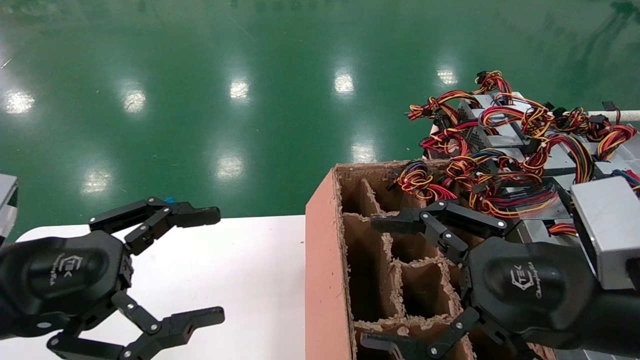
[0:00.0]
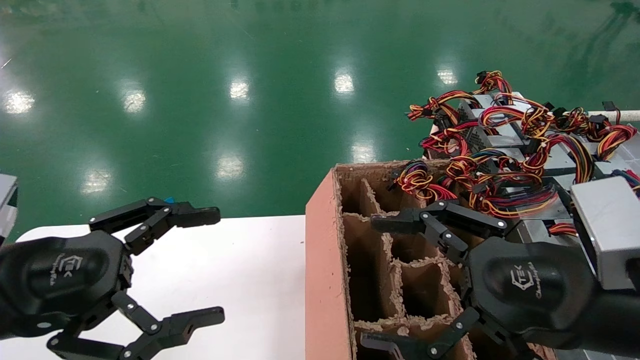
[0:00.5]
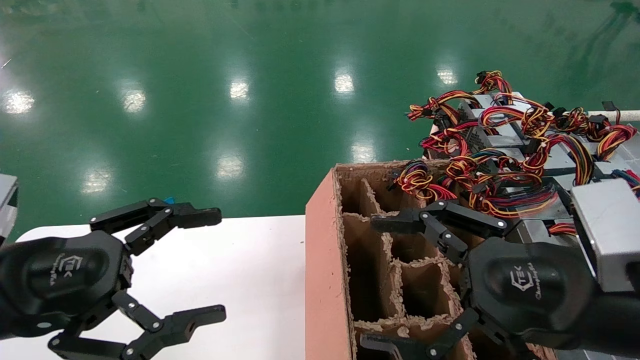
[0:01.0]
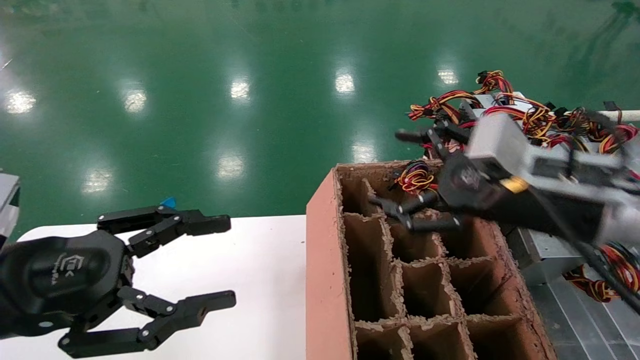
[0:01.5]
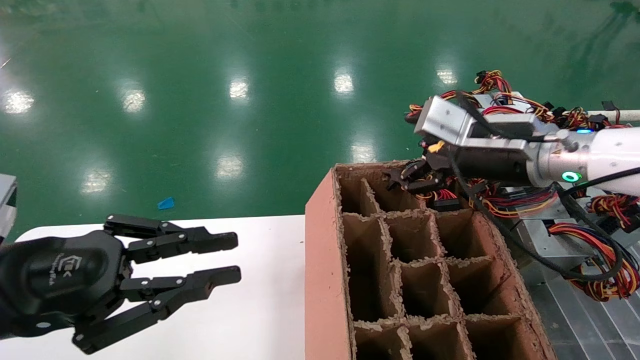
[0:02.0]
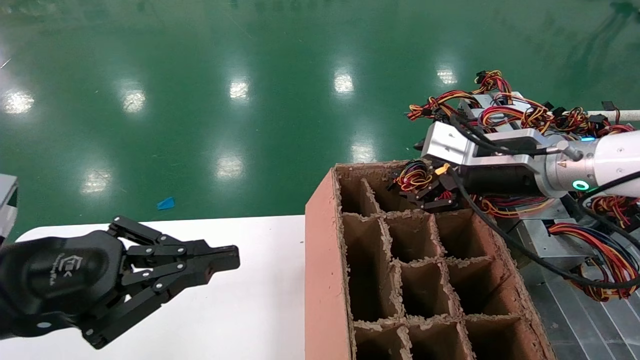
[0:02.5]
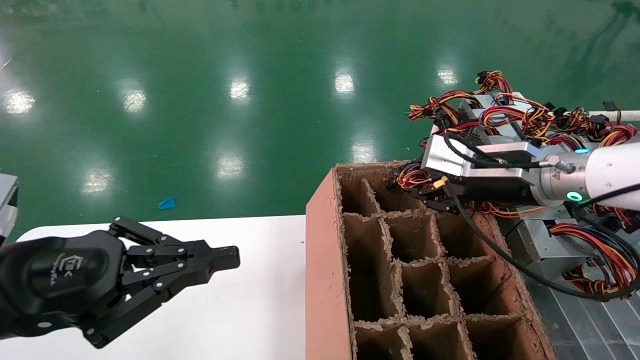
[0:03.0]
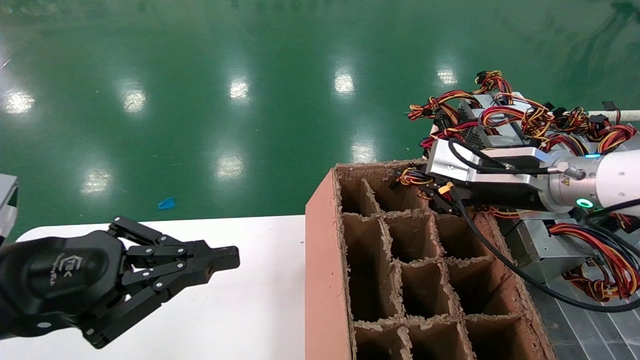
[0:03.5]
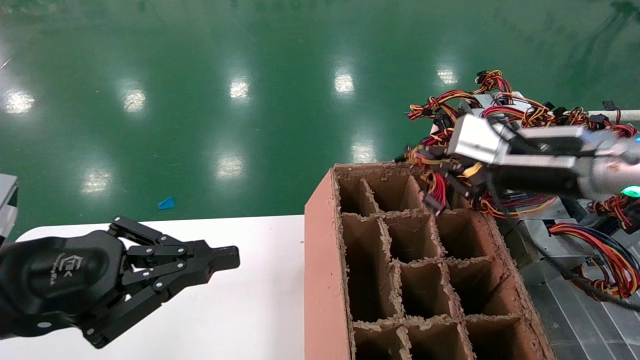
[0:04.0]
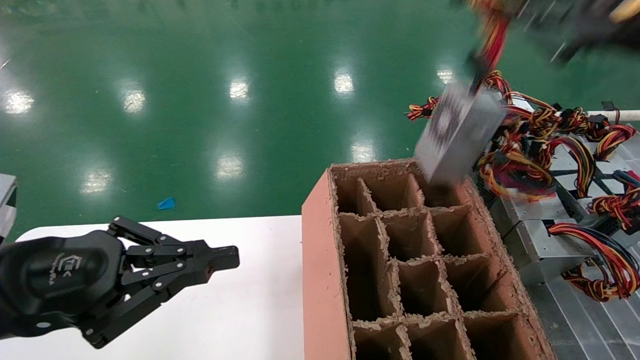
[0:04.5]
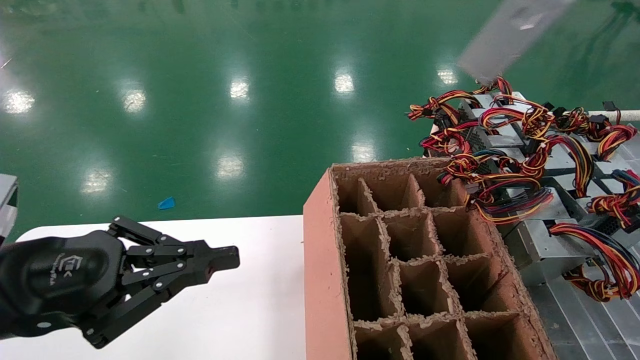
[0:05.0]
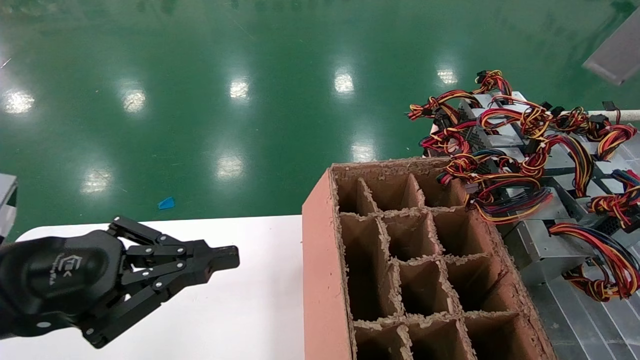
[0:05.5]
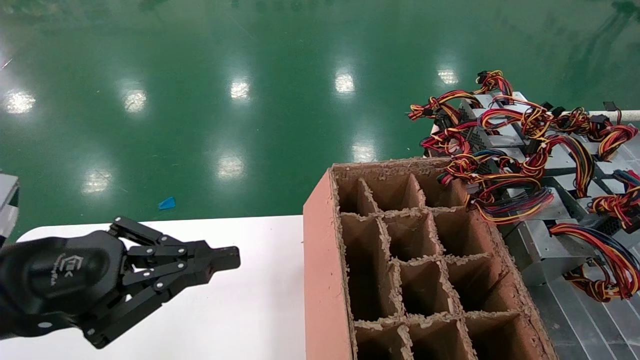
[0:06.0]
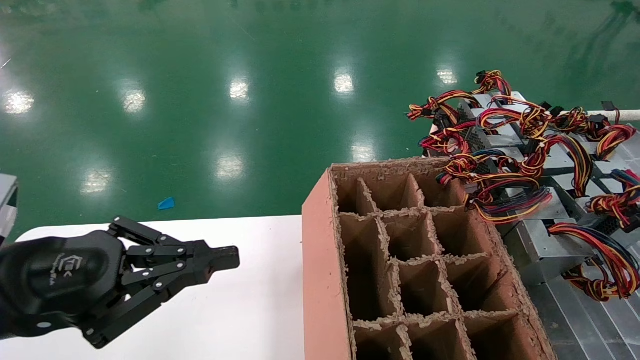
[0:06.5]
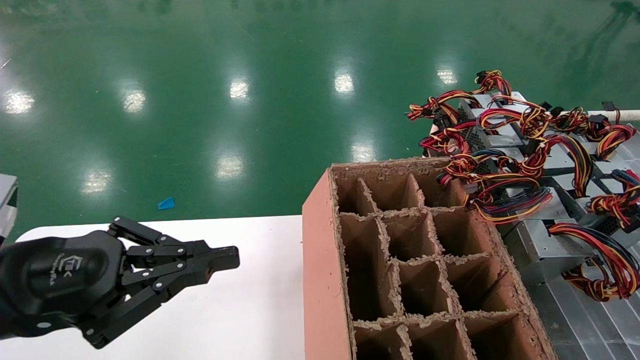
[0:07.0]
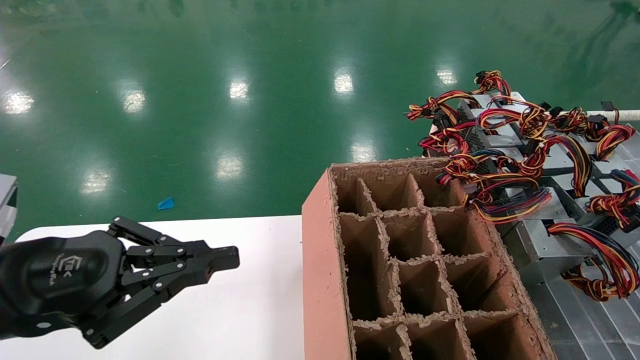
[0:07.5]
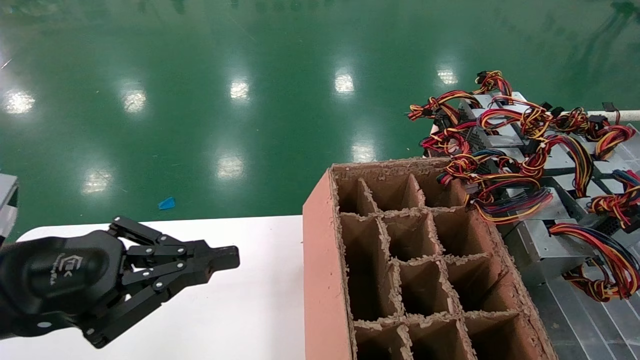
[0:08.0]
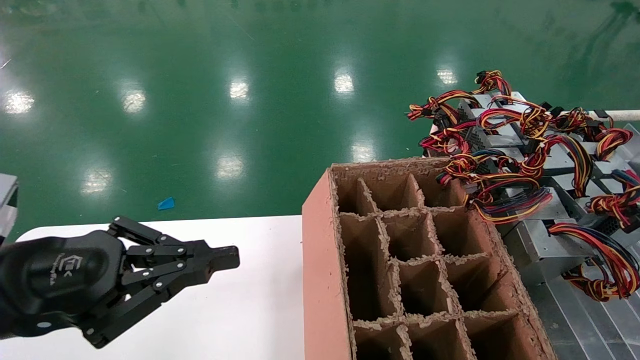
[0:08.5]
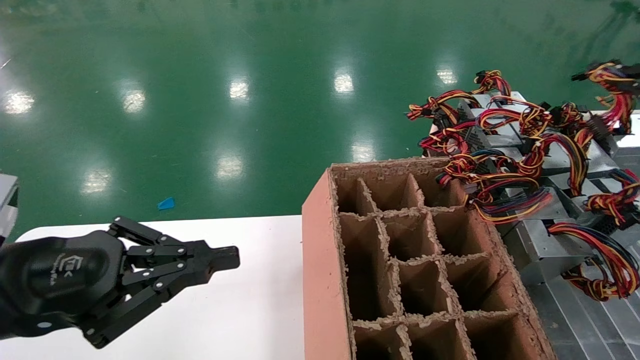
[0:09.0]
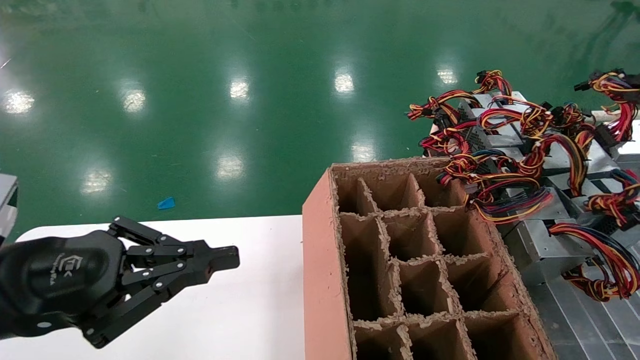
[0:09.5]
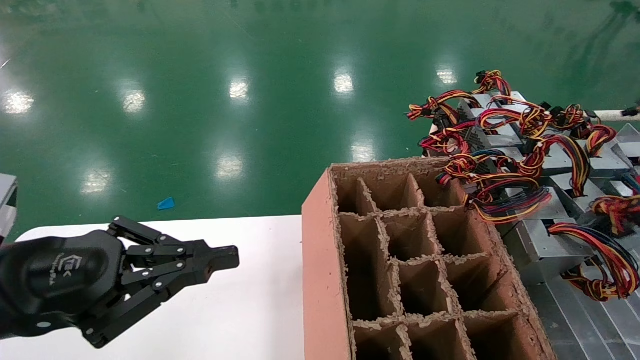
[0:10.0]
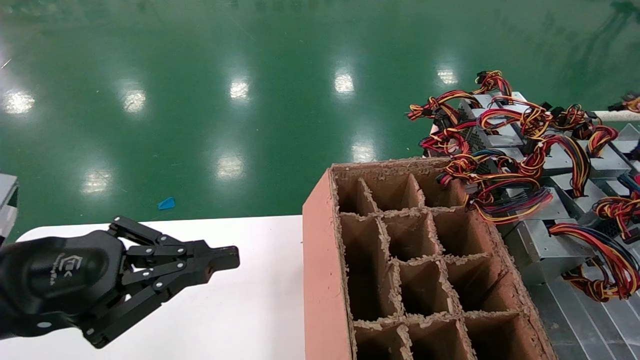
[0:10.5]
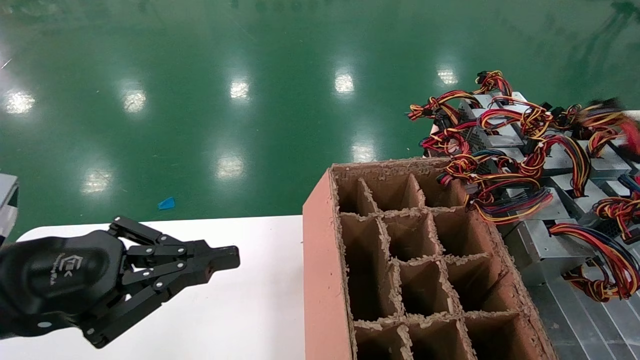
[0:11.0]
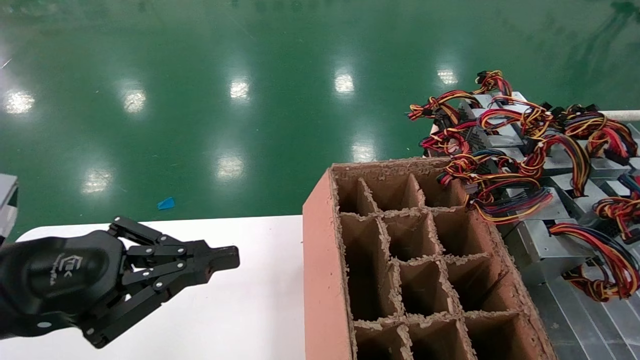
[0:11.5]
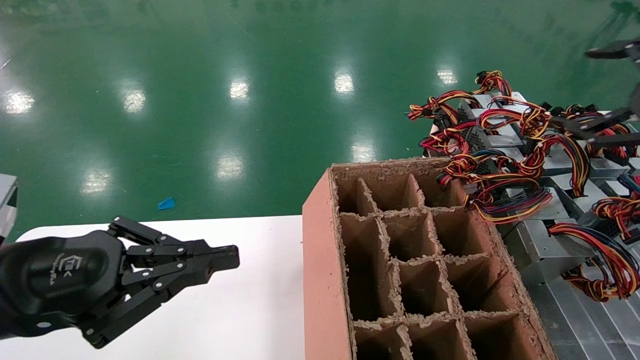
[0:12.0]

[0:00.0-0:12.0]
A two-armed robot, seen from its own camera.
Step, 0:01.5 to 0:03.5: Grab the main unit power supply from the containment box.
Step, 0:04.0 to 0:12.0: Place the main unit power supply in the designated area.
0:00.0 to 0:02.0: The left gripper closes up; the right gripper moves forward, roughly 15 cm.
0:02.0 to 0:04.0: The right gripper changes place by about 5 cm, and closes.
0:04.0 to 0:06.0: The right gripper shifts approximately 35 cm to the right, backward and upward.
0:08.0 to 0:10.0: The right gripper travels forward by some 5 cm.
0:10.0 to 0:12.0: The right gripper travels to the left by approximately 10 cm, and opens.

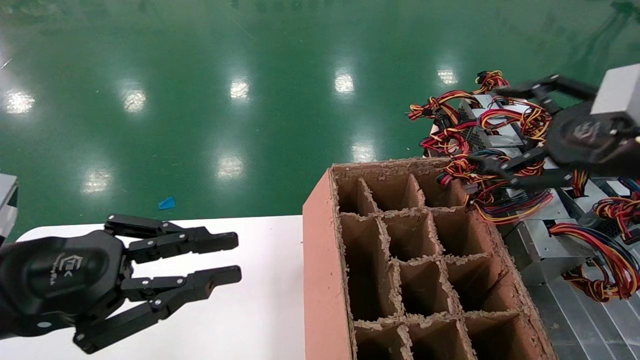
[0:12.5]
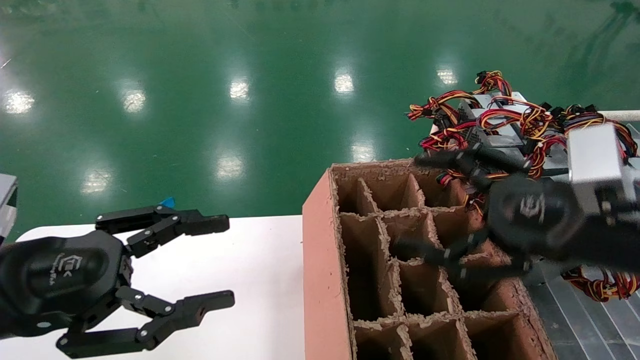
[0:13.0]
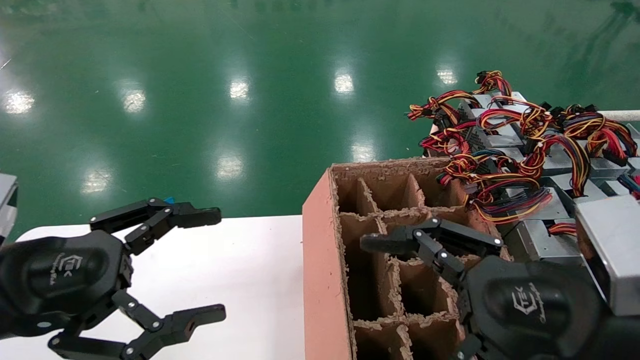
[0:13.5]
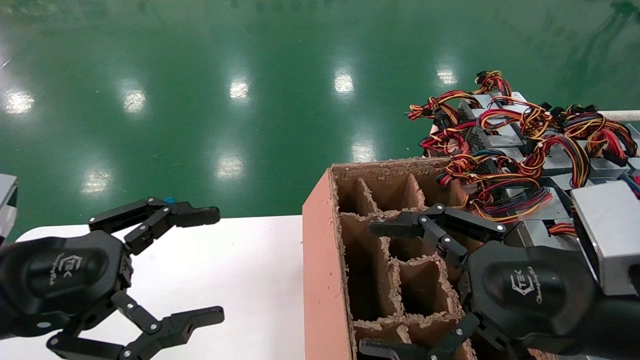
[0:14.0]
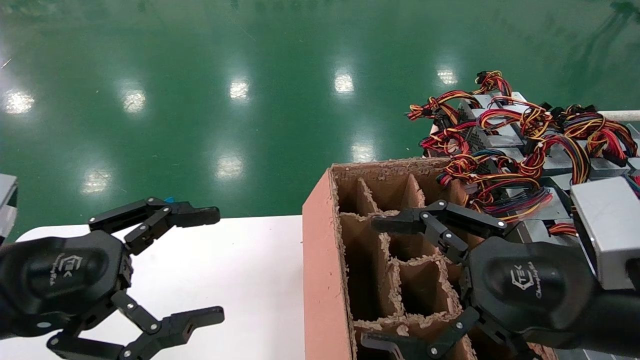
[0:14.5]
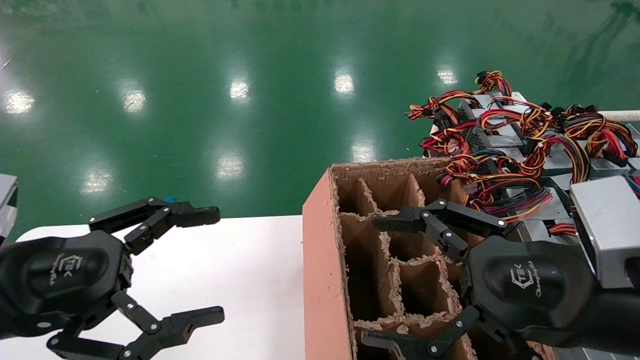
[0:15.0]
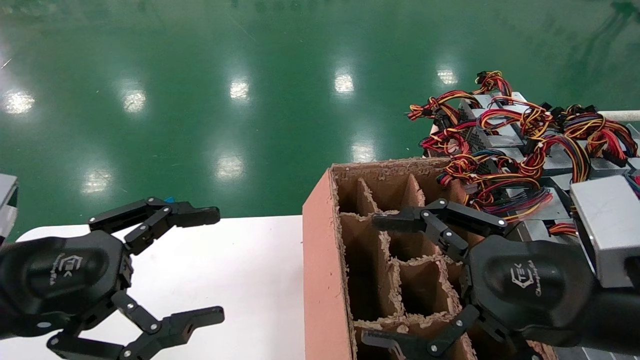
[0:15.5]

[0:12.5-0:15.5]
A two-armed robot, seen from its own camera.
0:12.5 to 0:14.0: The left gripper opens up. The right gripper goes about 15 cm to the left, backward and downward.
0:14.0 to 0:15.5: The two grippers keep their place.

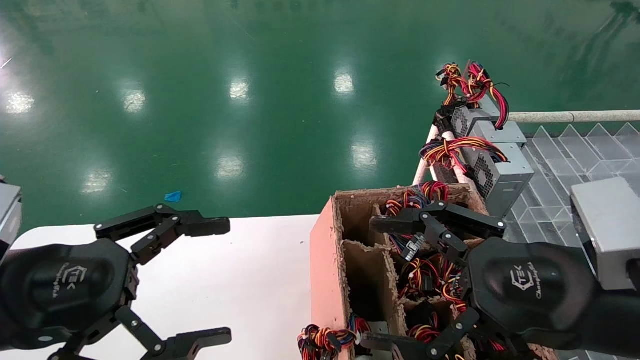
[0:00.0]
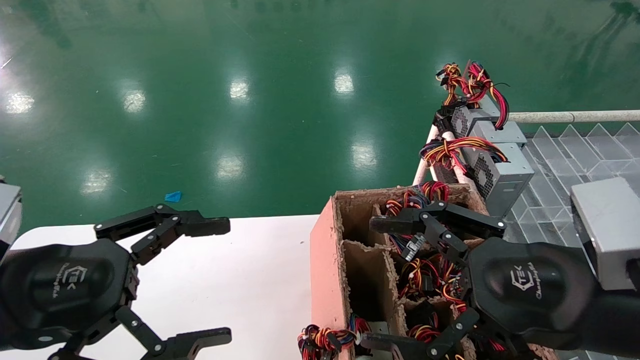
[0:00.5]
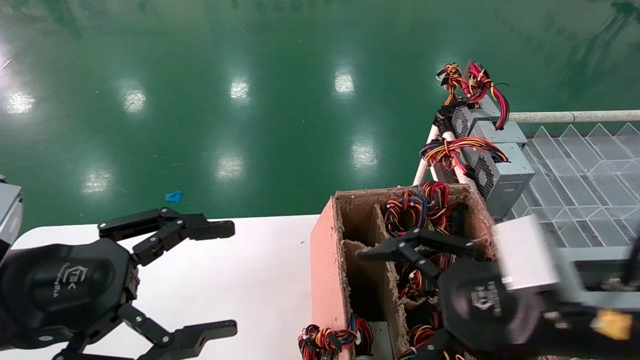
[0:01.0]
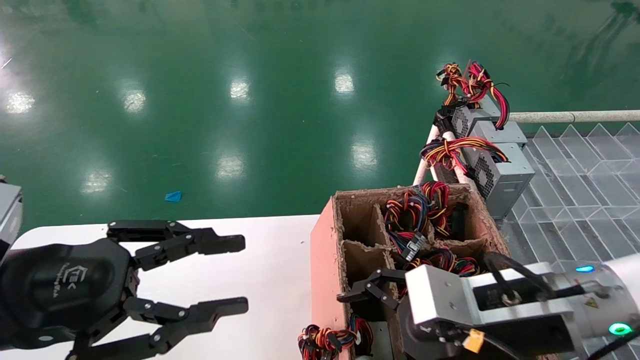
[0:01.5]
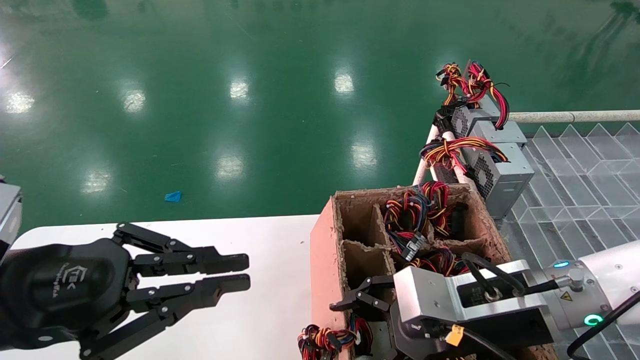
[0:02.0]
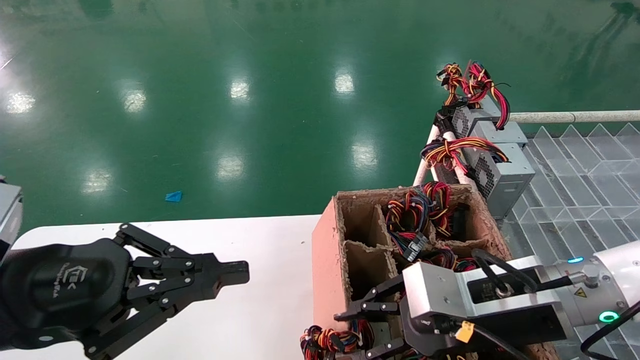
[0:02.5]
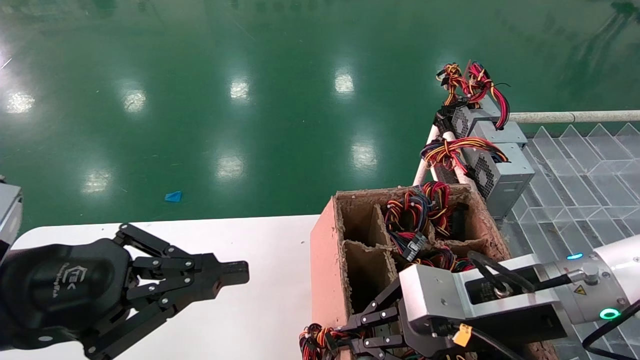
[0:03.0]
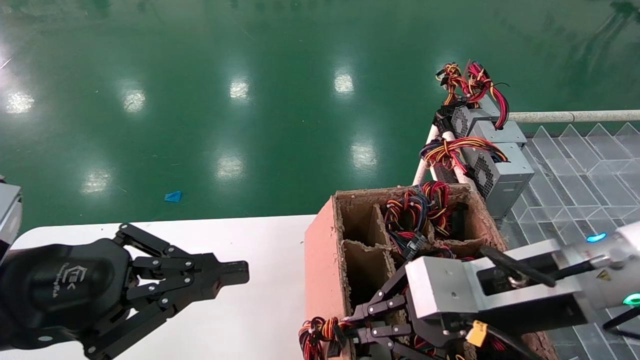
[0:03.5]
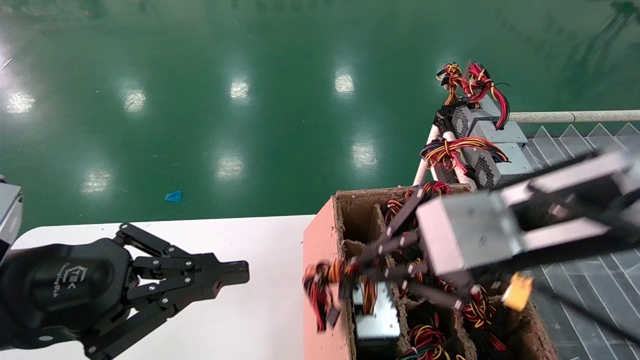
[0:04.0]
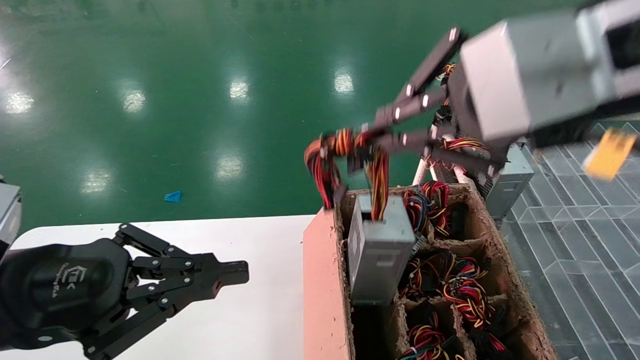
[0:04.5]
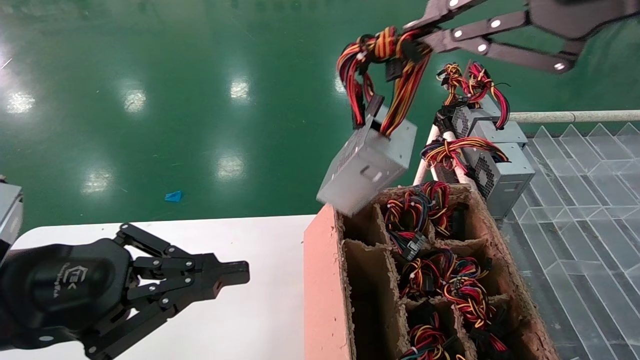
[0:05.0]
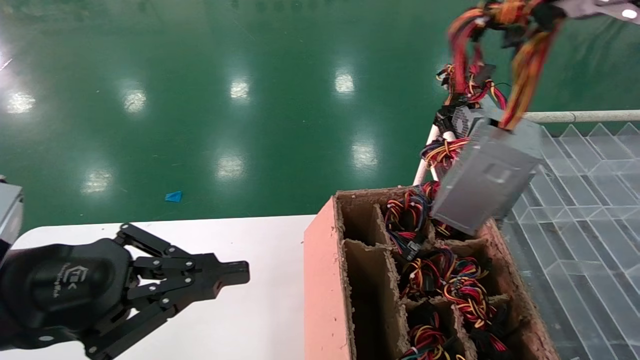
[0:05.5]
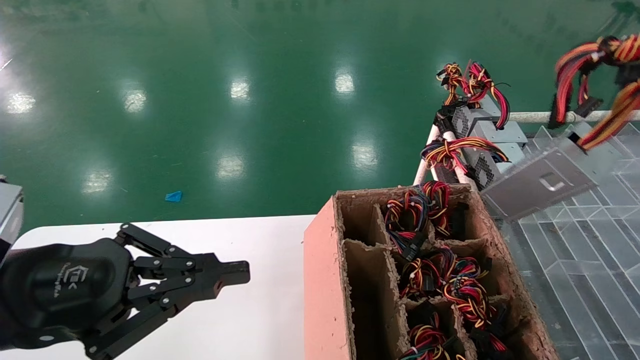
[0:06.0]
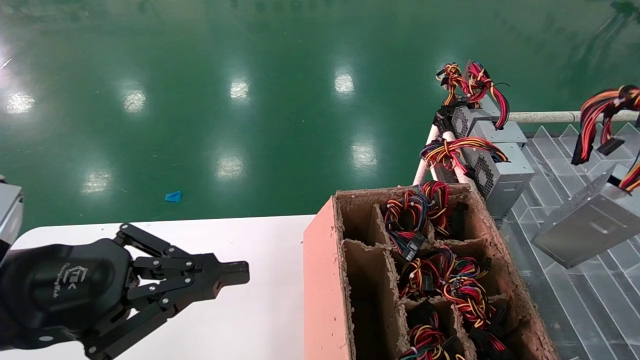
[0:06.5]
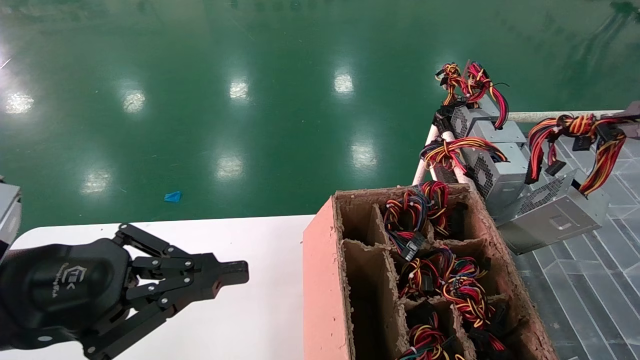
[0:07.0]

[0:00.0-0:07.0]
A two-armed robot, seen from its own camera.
Step, 0:01.5 to 0:03.0: Grab the main unit power supply from the containment box.
0:00.0 to 0:02.0: The left gripper closes; the right gripper goes about 10 cm forward and downward.
0:02.0 to 0:03.5: The right gripper heads upward, covering some 5 cm, and closes up.
0:03.5 to 0:05.0: The right gripper shifts approximately 30 cm upward and backward.
0:05.0 to 0:07.0: The right gripper is displaced to the right and downward by roughly 20 cm.
